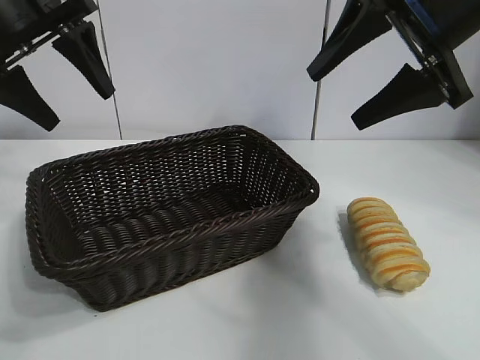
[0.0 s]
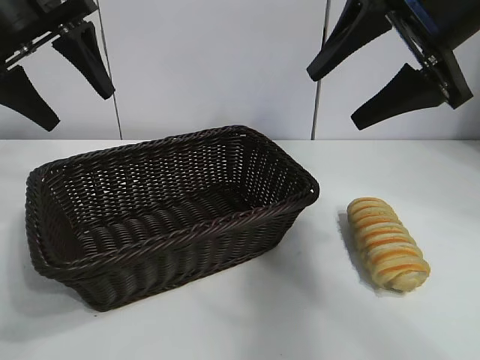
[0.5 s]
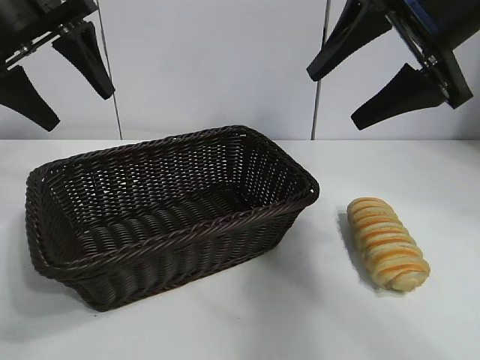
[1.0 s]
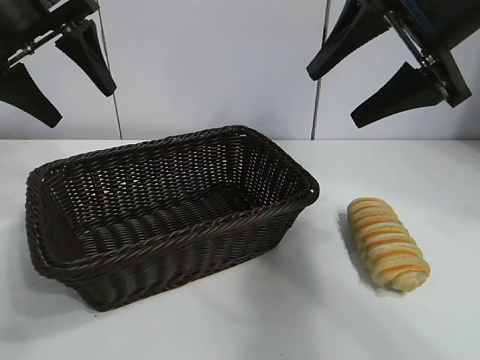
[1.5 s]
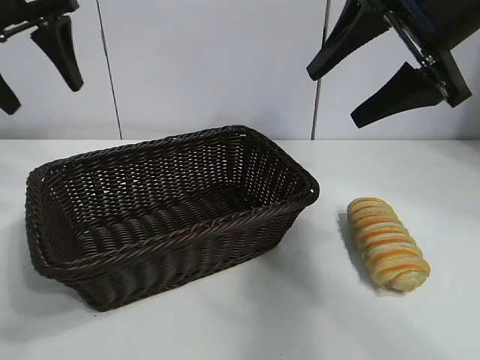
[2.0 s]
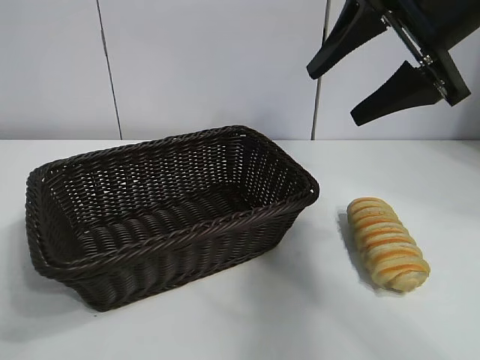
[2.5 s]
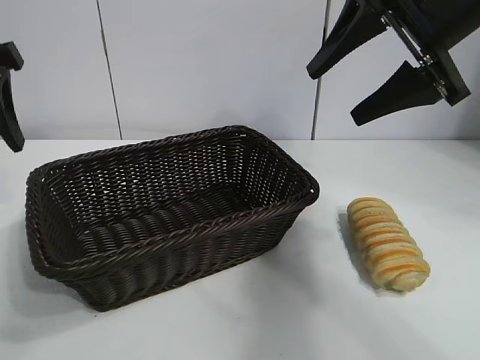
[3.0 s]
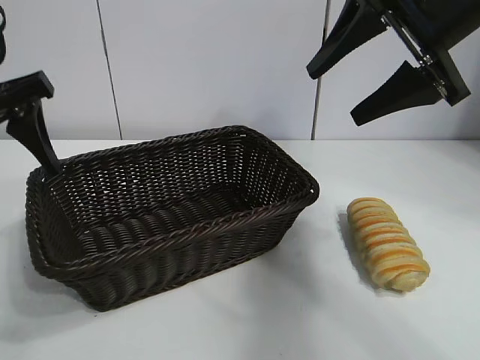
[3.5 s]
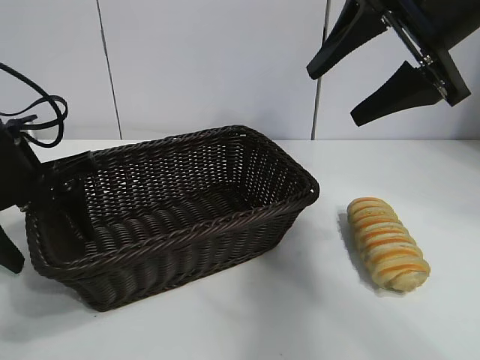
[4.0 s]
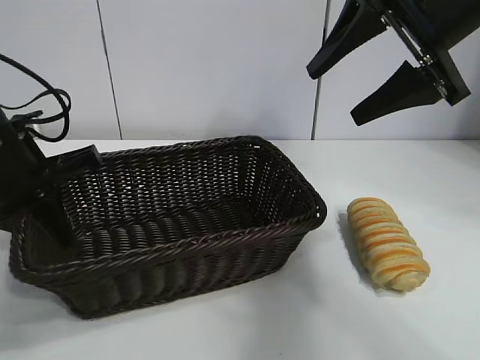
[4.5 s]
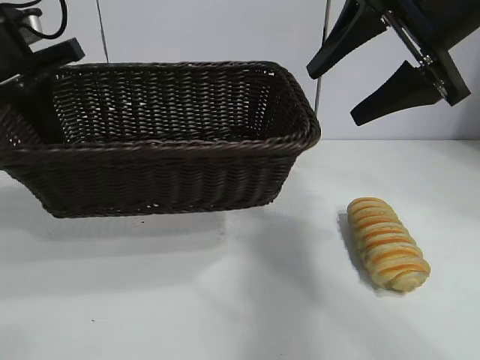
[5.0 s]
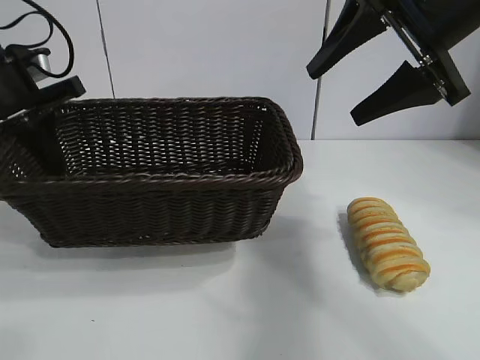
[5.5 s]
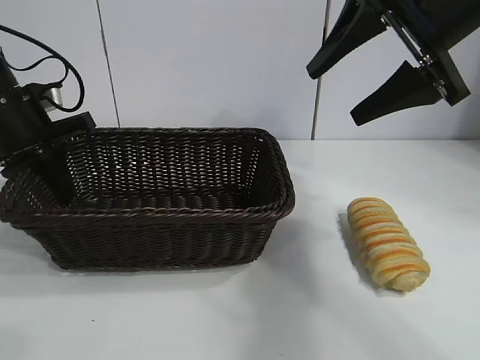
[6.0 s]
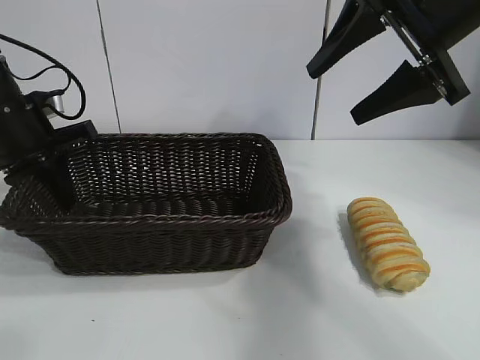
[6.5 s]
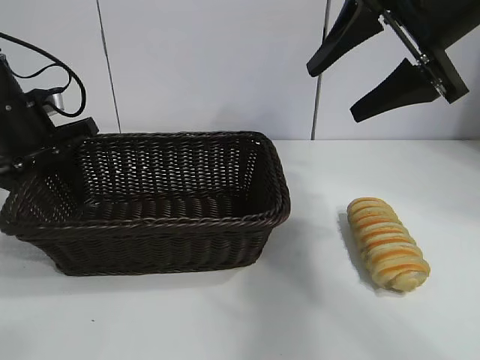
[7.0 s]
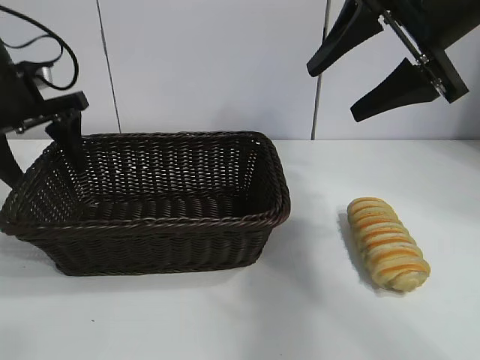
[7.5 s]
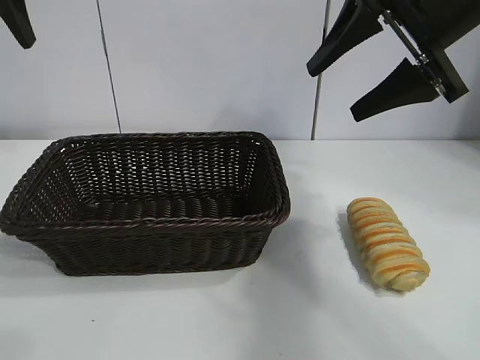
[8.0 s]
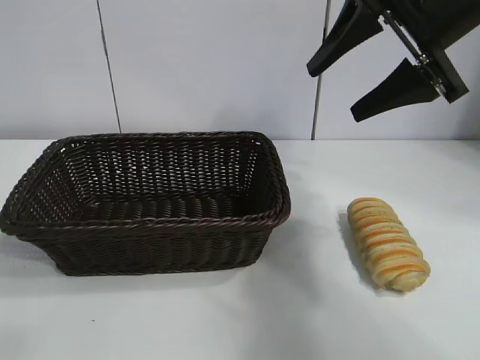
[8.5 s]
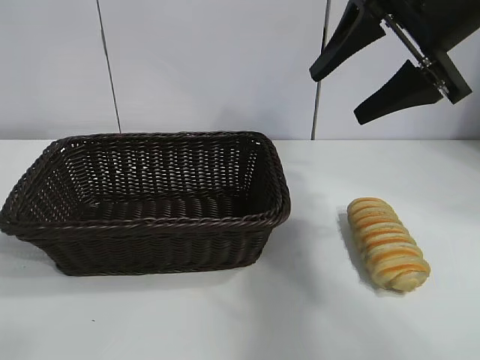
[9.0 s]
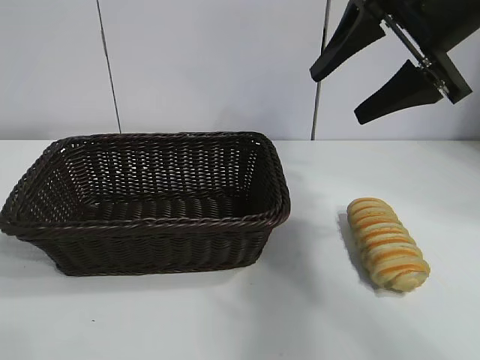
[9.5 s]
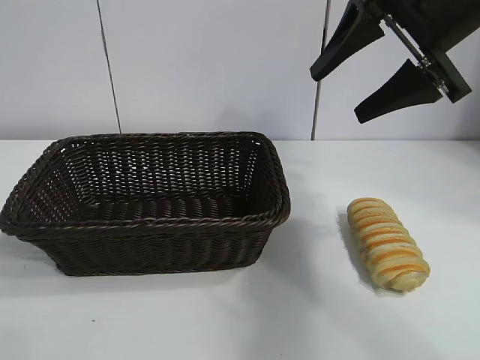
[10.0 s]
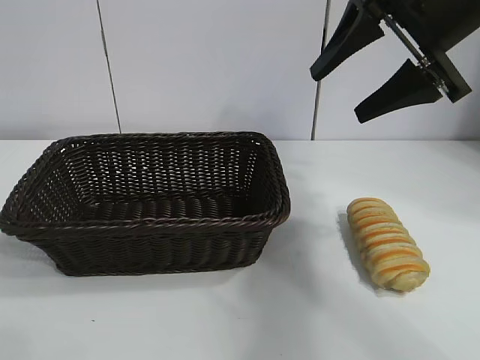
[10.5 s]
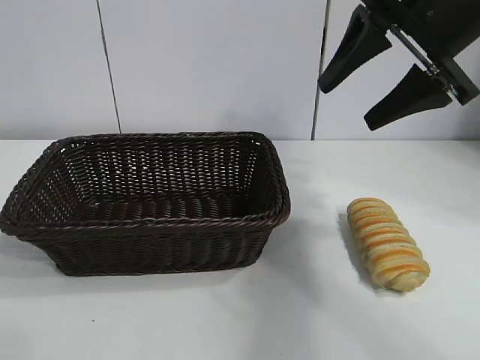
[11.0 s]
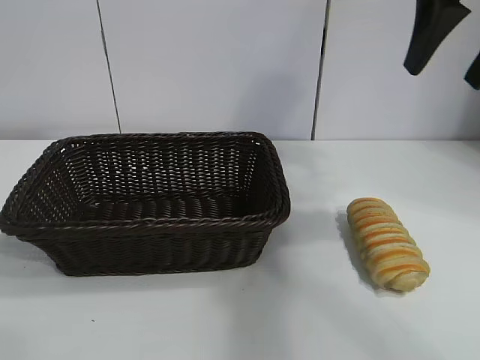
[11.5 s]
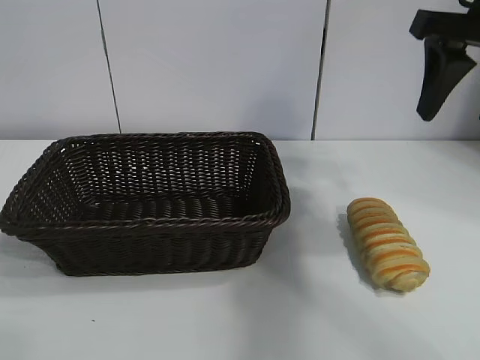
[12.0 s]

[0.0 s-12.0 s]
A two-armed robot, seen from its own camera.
Task of the whole recording: pick up the long bread and put it into the basket.
Step, 2.0 to 4.0 s: Grasp the basket with the left gripper.
Step, 4.5 to 7.5 s: Place the basket in the center of the table with the left gripper.

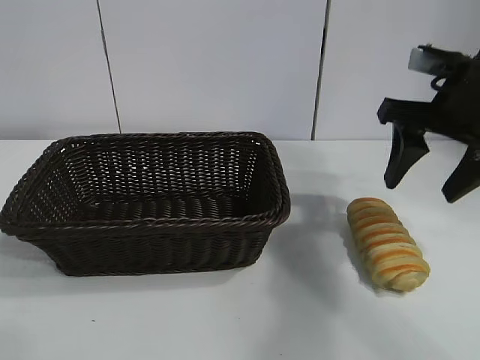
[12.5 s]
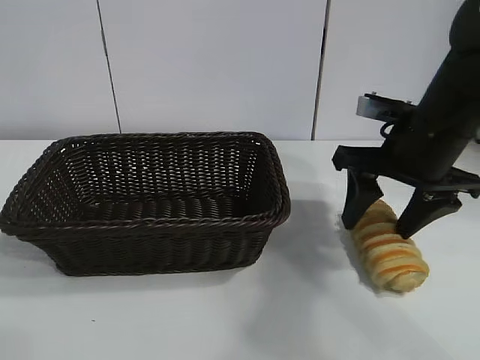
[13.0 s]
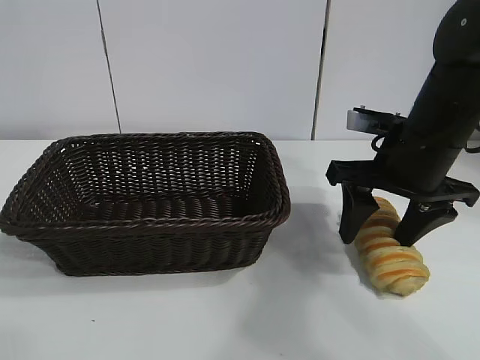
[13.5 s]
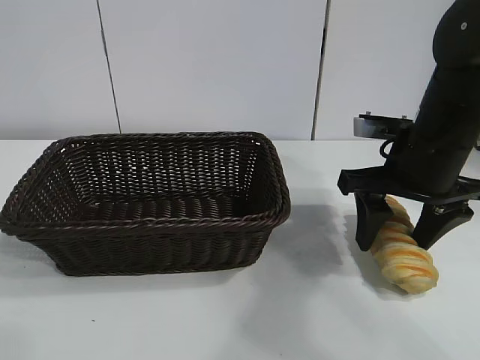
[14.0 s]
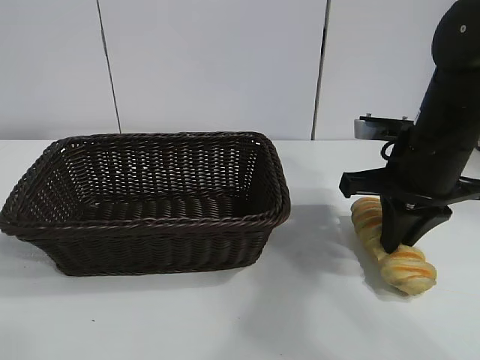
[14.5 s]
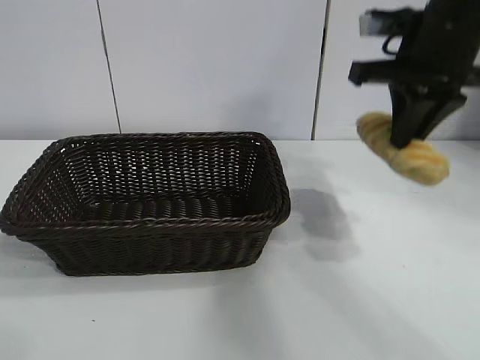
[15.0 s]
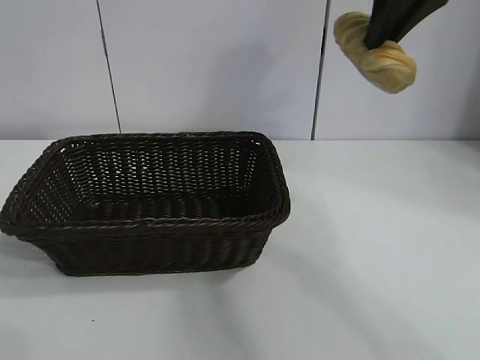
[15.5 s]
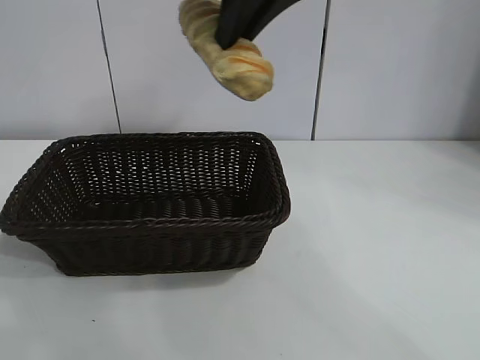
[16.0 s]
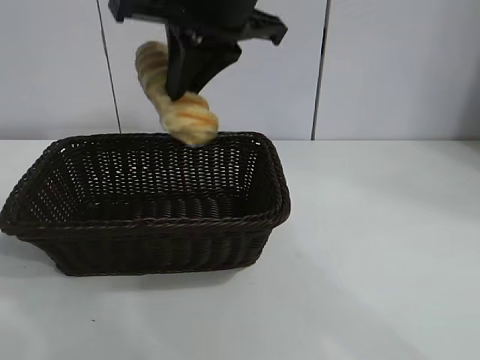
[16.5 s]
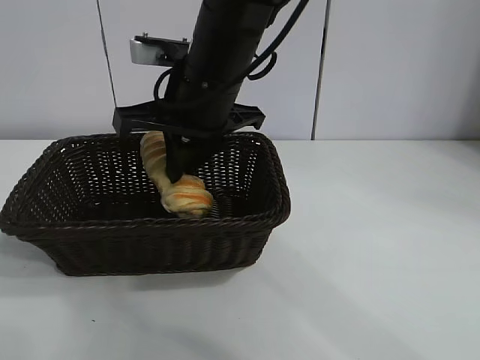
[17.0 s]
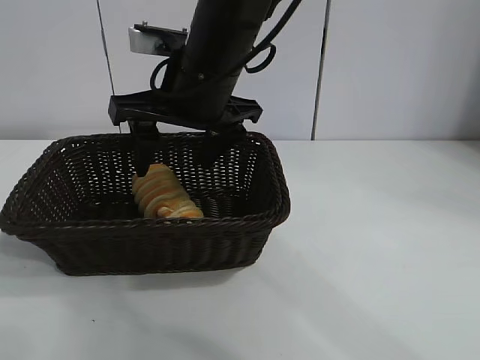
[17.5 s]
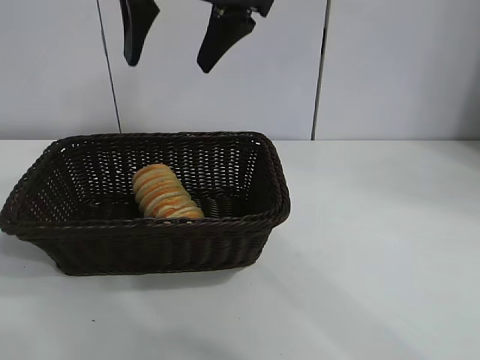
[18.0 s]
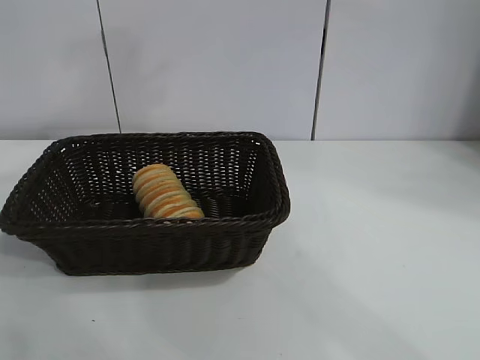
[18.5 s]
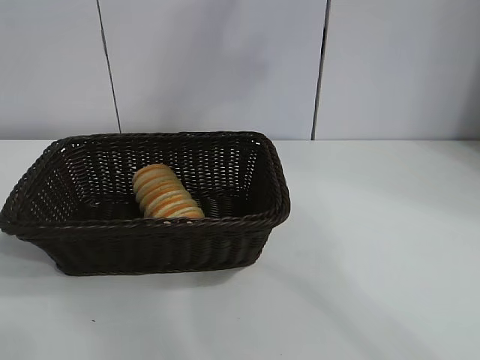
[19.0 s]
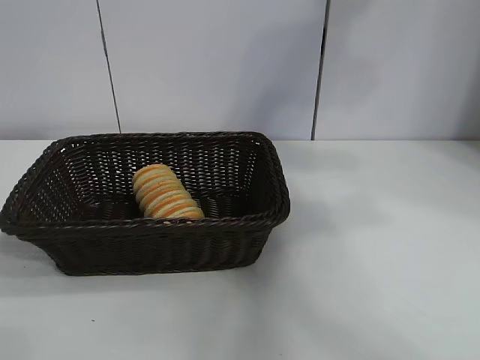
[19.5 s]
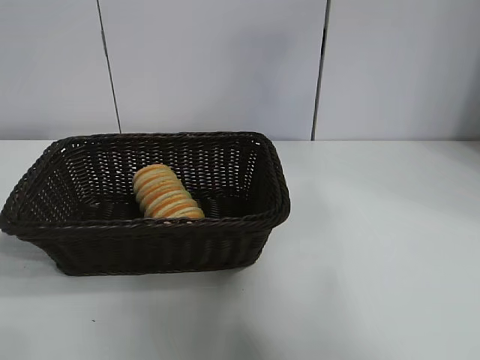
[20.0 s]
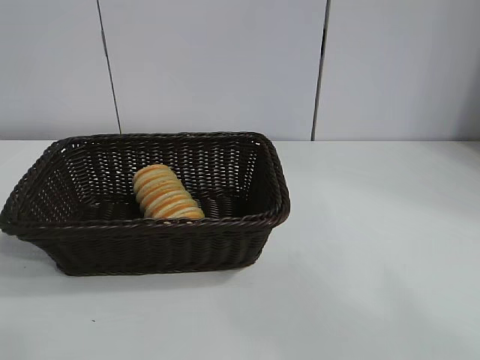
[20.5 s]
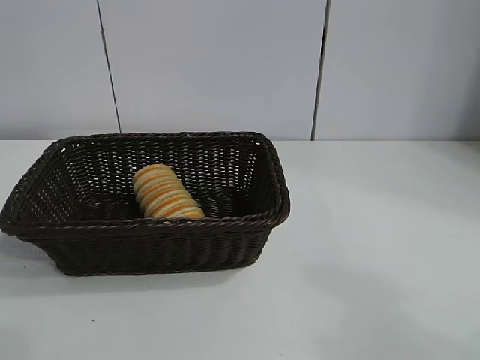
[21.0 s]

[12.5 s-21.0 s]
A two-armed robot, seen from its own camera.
Task of the whole recording: pick up the long bread and put it into the basket.
Step, 12.5 to 14.5 s: Grasp the long bread with right gripper.
Step, 15.0 to 17.0 s: Place the long bread in the basket with right gripper.

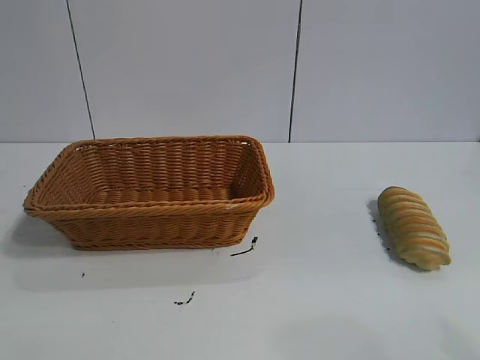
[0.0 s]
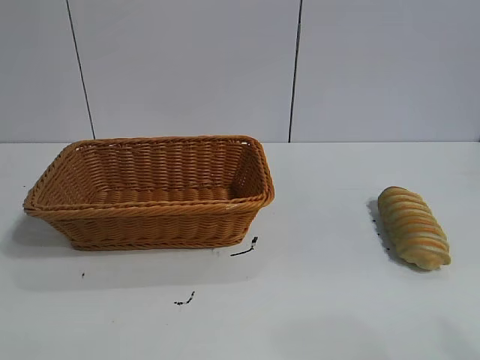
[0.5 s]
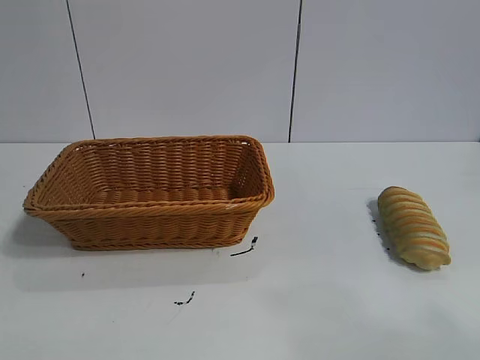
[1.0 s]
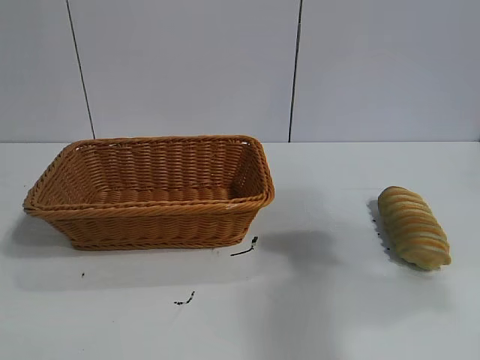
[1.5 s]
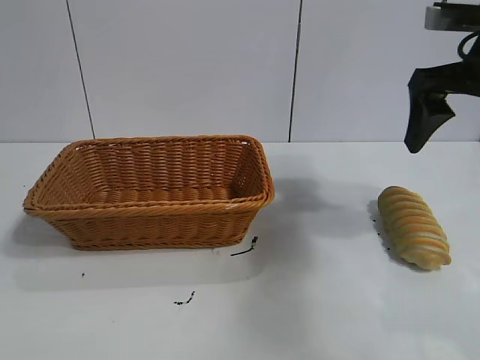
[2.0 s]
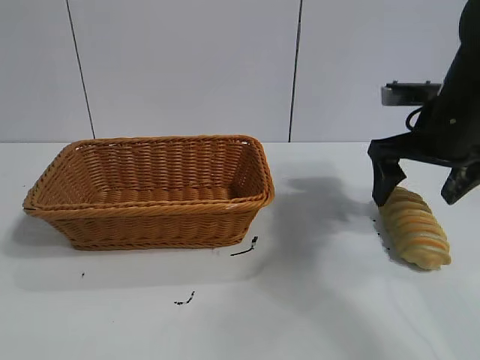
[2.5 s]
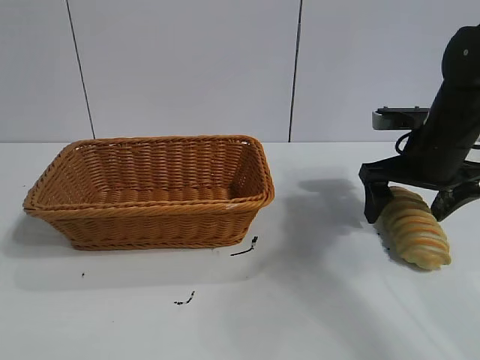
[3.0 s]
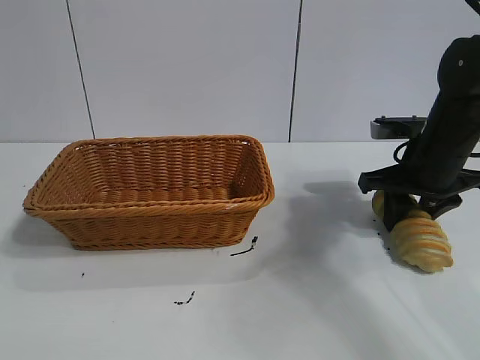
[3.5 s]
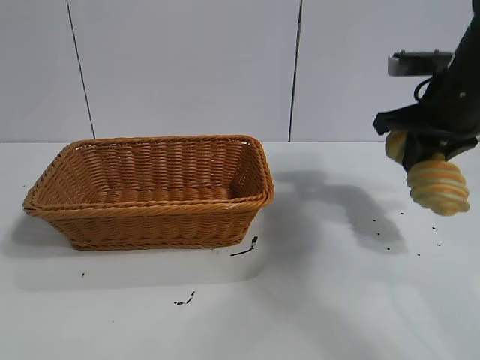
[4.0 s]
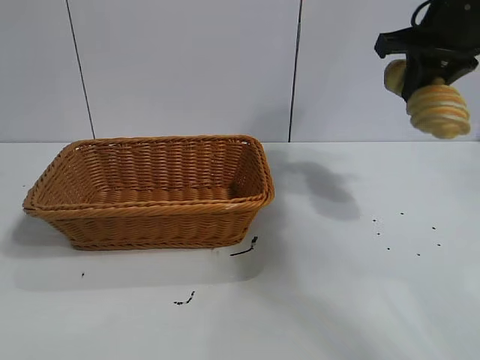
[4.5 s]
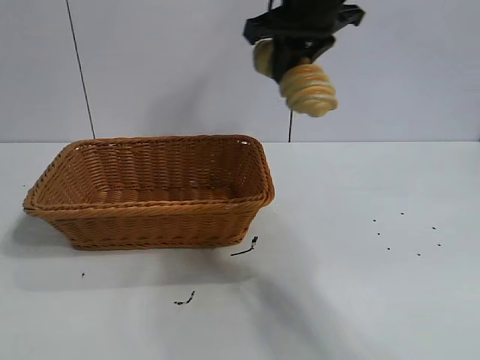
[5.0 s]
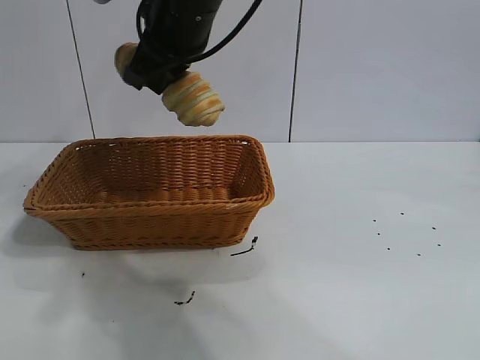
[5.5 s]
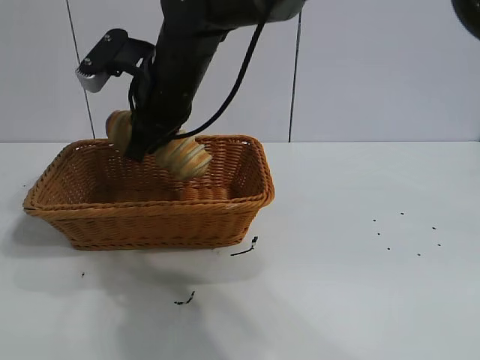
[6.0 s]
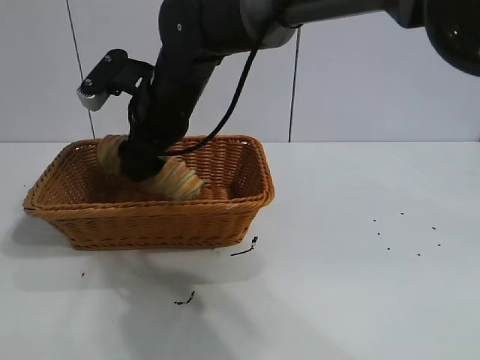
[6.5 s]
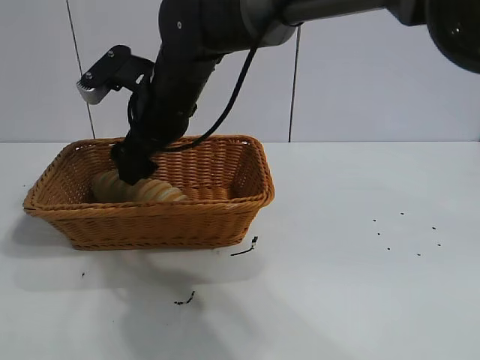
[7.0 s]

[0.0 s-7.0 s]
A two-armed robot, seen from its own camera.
Task of the whole recording: pick up the long bread and put it into the basket.
Step, 2.0 to 3.5 s: Grasp the long bread with right gripper.
